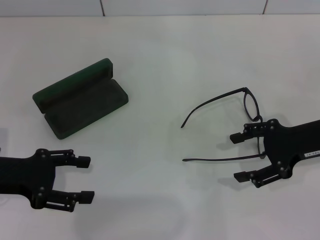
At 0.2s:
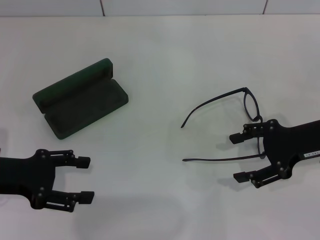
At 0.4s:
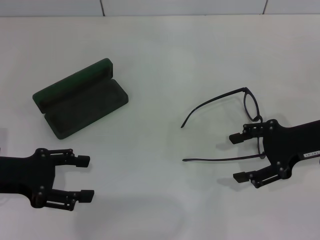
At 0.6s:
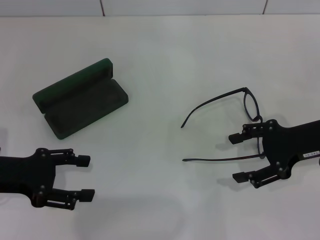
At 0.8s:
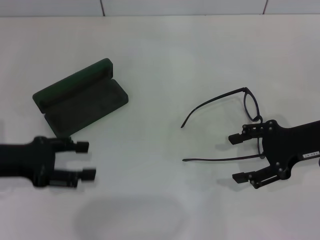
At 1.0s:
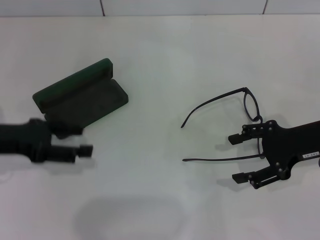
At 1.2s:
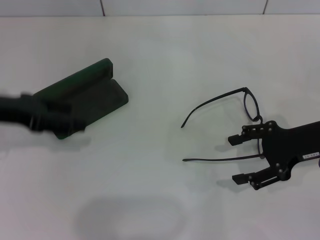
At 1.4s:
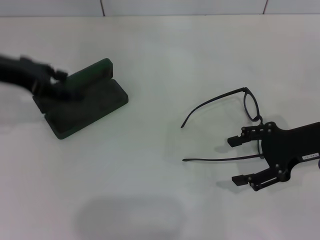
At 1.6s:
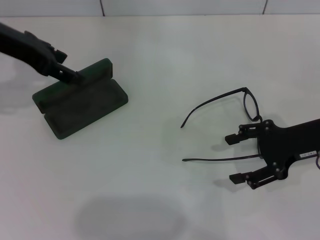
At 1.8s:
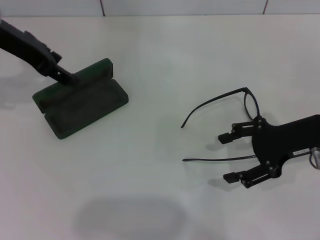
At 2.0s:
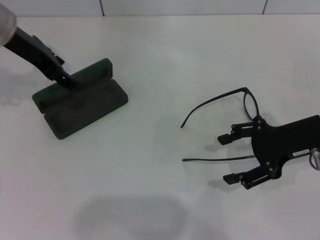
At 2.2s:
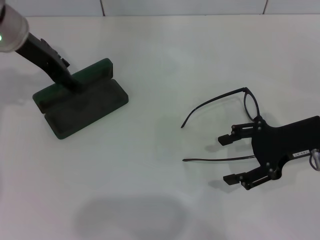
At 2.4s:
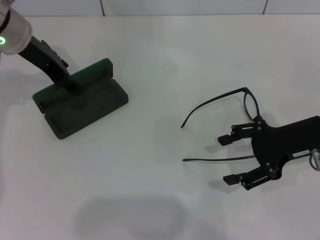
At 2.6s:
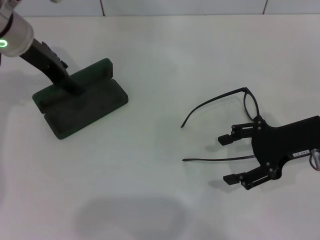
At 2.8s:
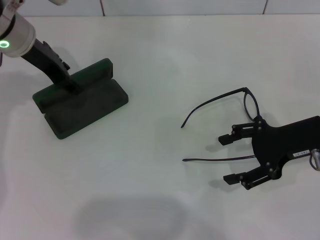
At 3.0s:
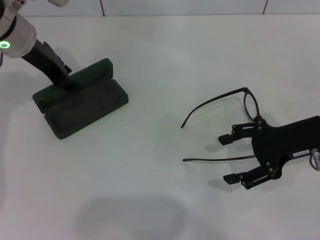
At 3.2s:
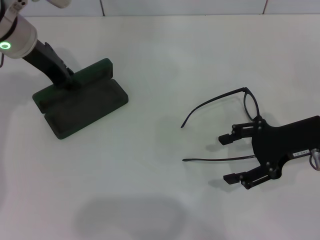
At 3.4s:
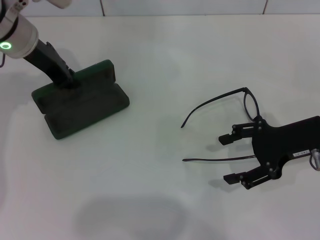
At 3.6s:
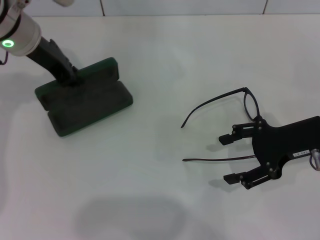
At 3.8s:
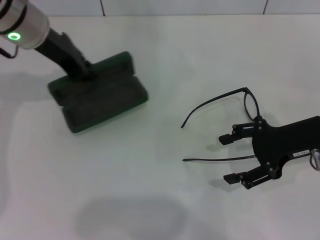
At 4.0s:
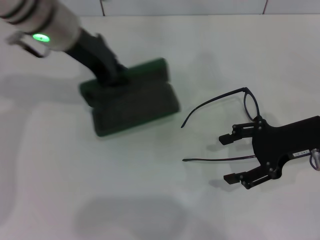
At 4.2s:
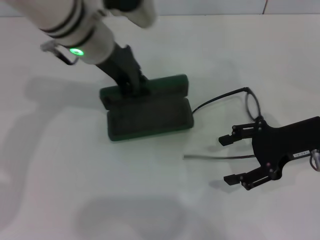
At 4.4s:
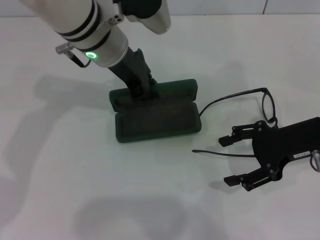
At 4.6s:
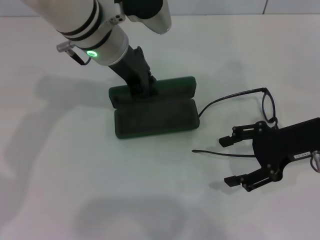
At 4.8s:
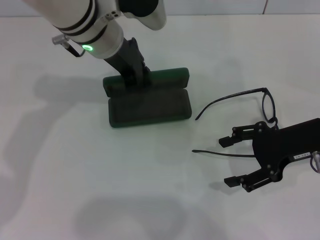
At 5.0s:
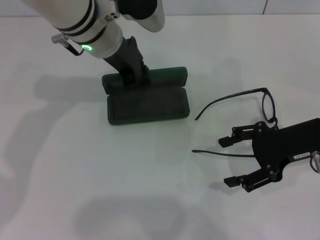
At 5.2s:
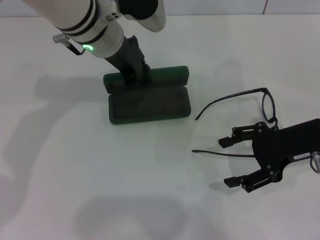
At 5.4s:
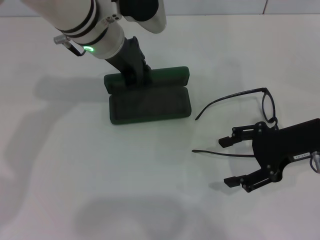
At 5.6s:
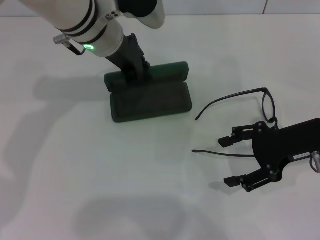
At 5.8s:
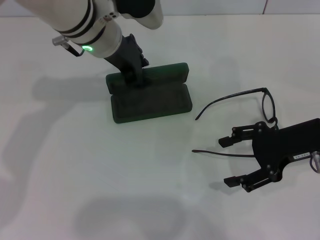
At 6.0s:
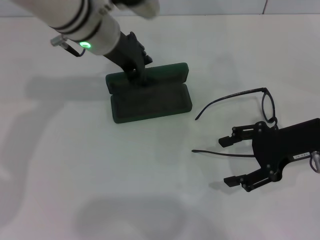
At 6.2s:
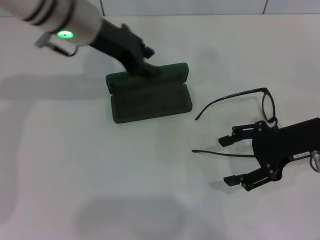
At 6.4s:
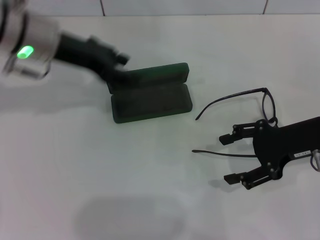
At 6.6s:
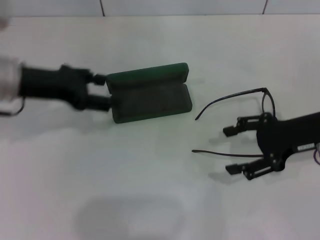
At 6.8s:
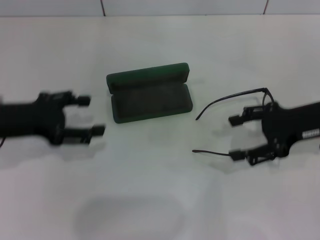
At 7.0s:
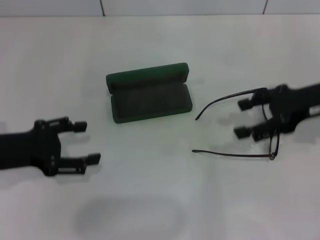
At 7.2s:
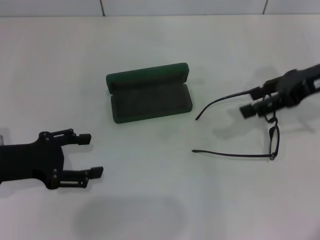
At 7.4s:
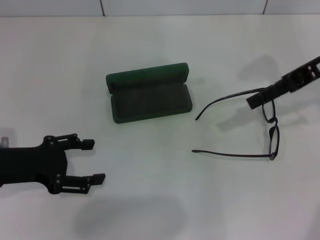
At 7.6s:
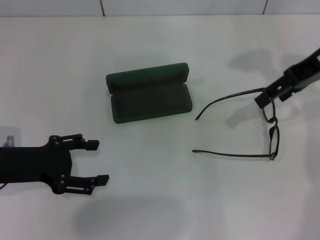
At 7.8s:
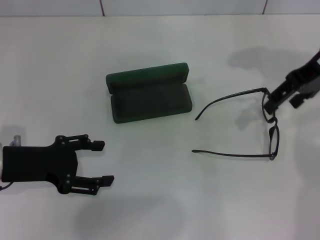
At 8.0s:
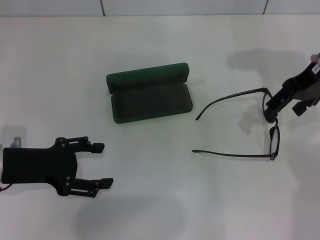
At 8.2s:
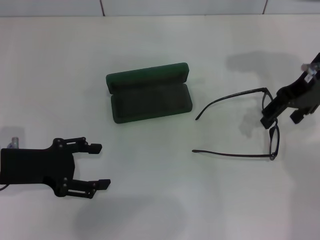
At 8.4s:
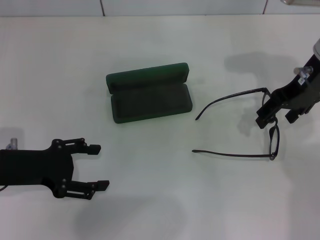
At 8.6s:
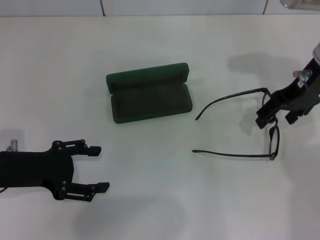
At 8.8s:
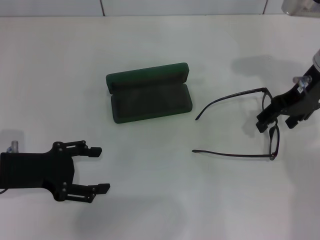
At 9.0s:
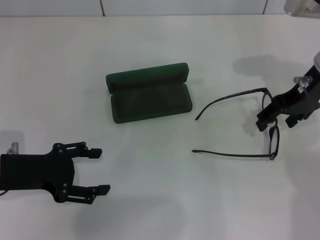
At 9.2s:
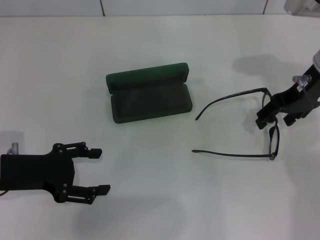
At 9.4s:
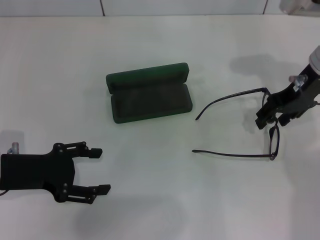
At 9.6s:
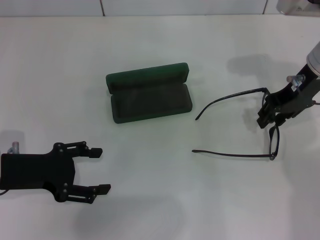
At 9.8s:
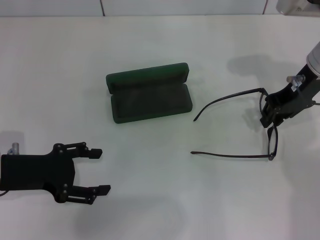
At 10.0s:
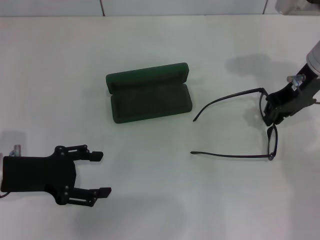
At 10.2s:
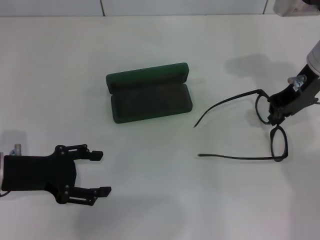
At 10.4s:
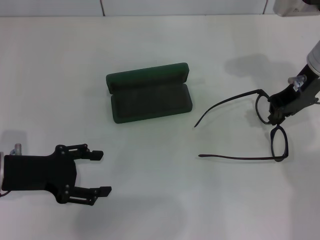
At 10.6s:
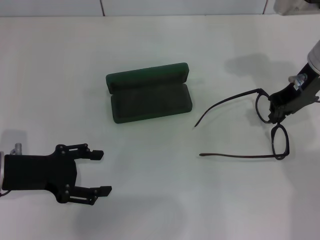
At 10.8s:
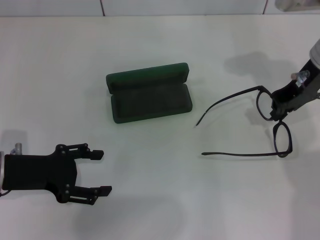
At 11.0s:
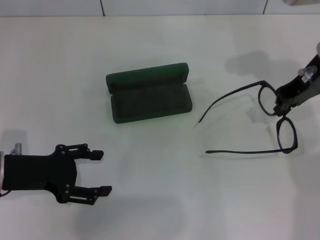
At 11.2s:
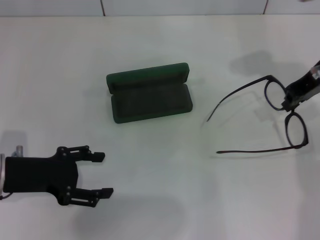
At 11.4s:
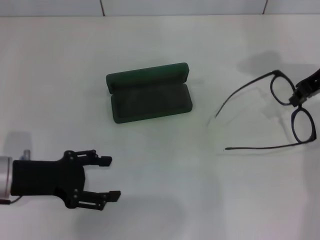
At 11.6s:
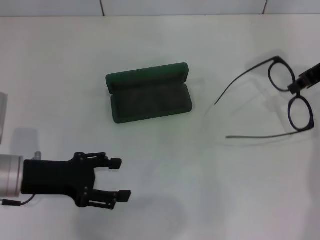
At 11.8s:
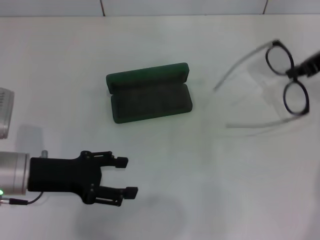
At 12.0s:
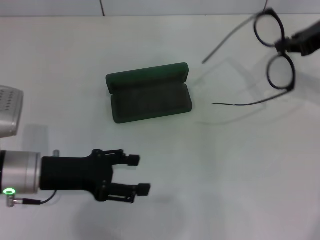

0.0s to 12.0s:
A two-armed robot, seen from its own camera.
Step, 0.0s to 3.2s: Grab the glasses case with your left hand.
Step, 3.4s to 5.6s: Place the glasses case in the center of the table with your left hand.
Step, 5.8s to 10.4s: Grab the eyeglass frame with your right hand.
0.0s to 1.6s: The left gripper travels forward and upward by roughly 20 cm.
1.6s to 3.0s: The left gripper changes place by some 5 cm.
3.0s to 4.4s: The left gripper heads to the right, covering some 10 cm, and closes.
4.4s to 6.0s: The grippers move only a little.
6.0s to 7.6s: The left gripper shifts approximately 25 cm to the left, backward and downward, and opens, while the right gripper moves upward and forward, about 15 cm.
7.6s to 9.0s: The right gripper travels downward by some 5 cm.
9.0s to 10.4s: The right gripper closes up.
10.4s to 12.0s: The right gripper is displaced to the right by some 10 cm.

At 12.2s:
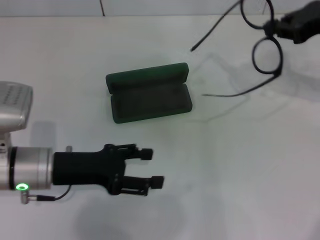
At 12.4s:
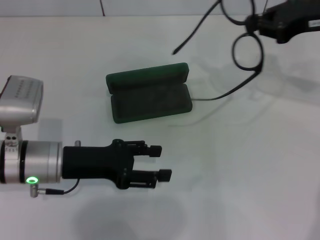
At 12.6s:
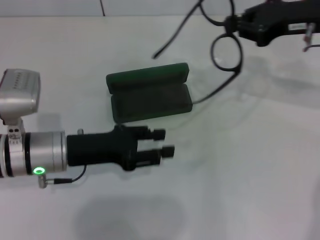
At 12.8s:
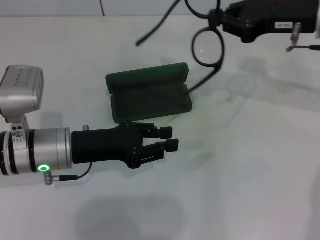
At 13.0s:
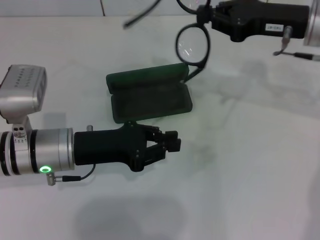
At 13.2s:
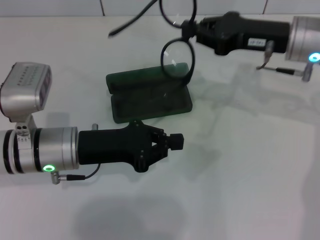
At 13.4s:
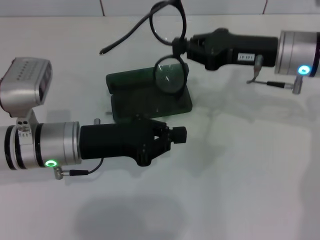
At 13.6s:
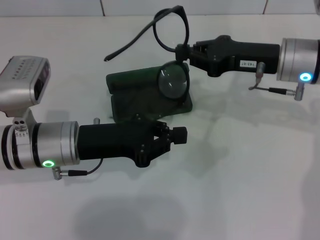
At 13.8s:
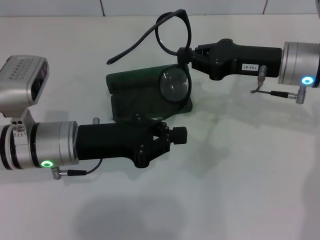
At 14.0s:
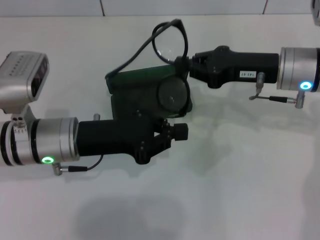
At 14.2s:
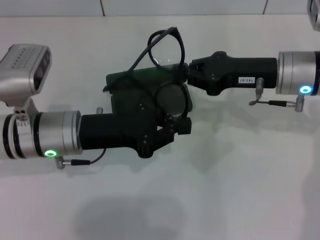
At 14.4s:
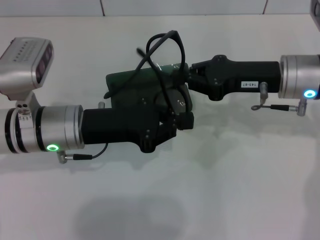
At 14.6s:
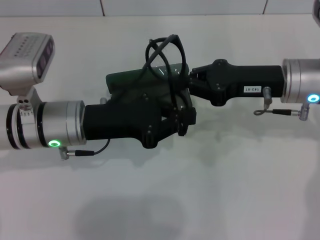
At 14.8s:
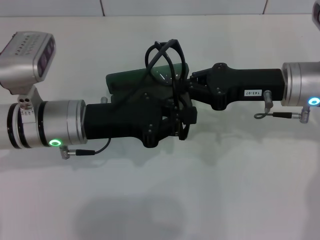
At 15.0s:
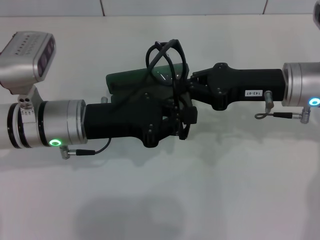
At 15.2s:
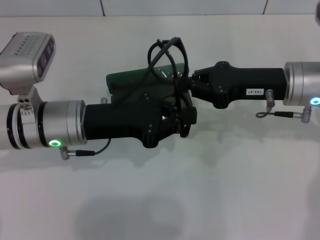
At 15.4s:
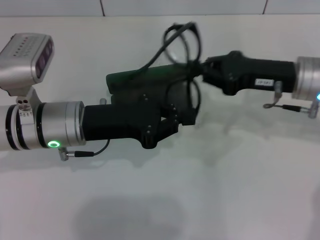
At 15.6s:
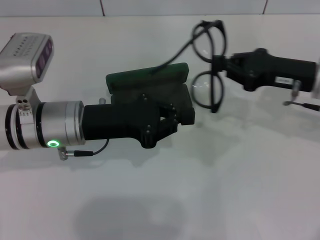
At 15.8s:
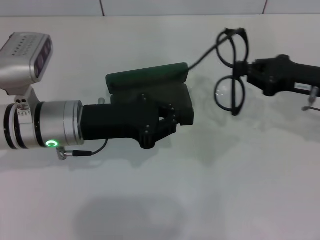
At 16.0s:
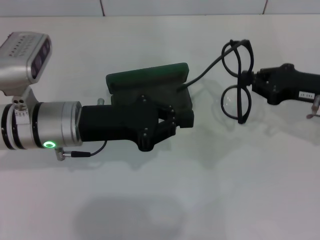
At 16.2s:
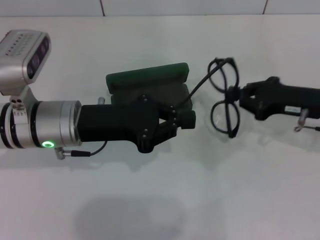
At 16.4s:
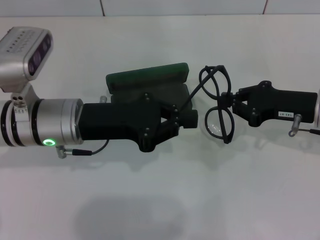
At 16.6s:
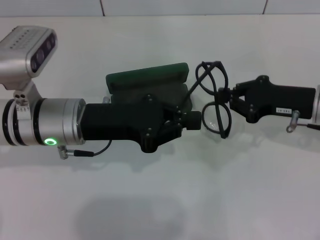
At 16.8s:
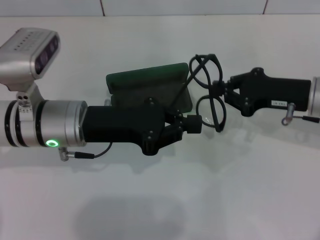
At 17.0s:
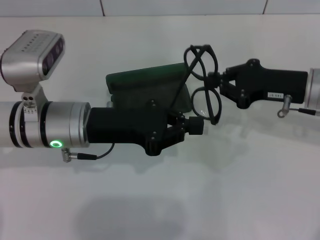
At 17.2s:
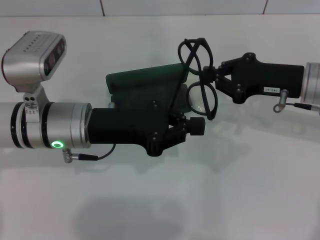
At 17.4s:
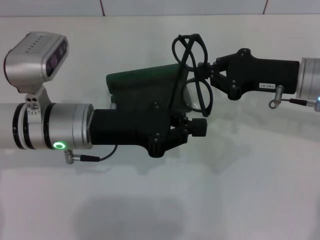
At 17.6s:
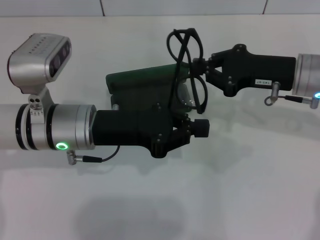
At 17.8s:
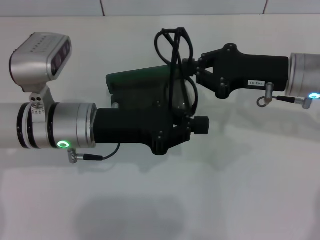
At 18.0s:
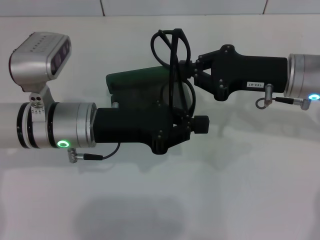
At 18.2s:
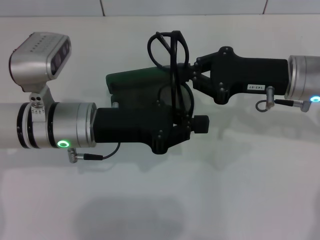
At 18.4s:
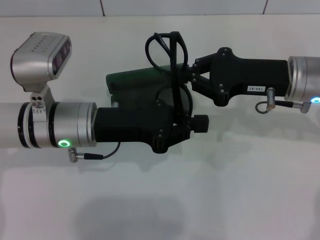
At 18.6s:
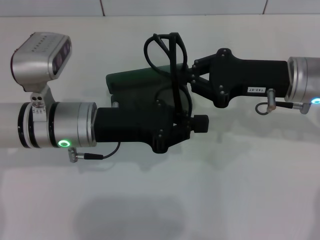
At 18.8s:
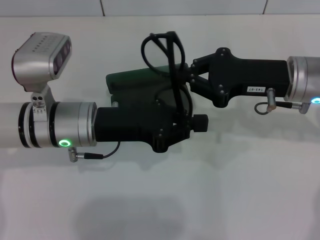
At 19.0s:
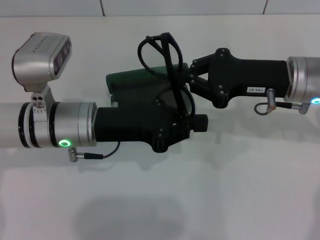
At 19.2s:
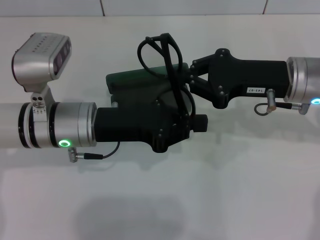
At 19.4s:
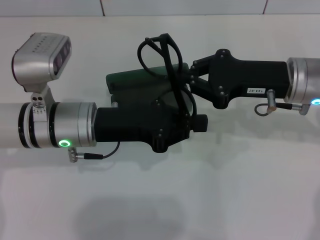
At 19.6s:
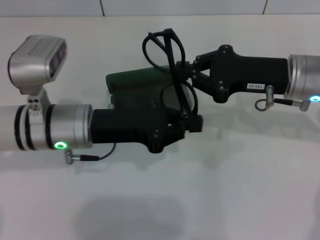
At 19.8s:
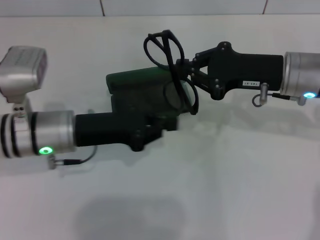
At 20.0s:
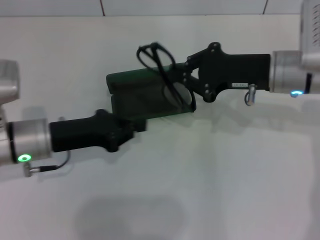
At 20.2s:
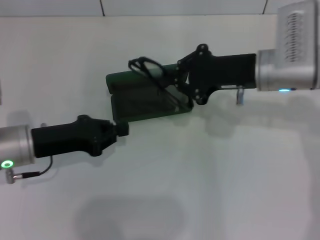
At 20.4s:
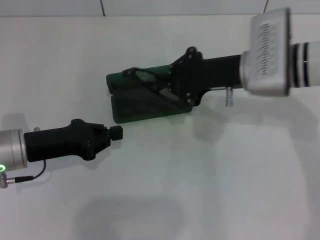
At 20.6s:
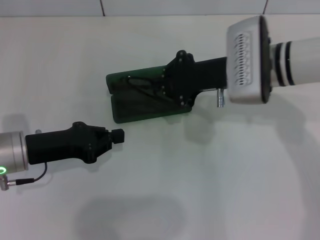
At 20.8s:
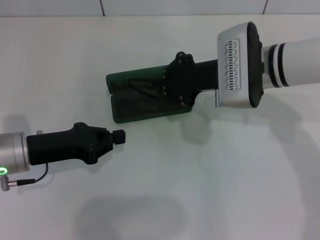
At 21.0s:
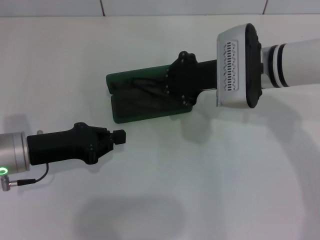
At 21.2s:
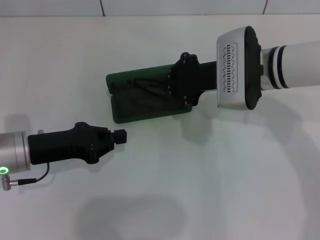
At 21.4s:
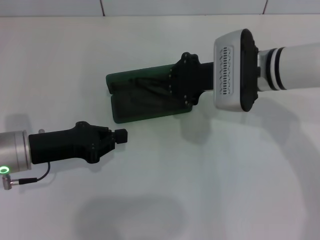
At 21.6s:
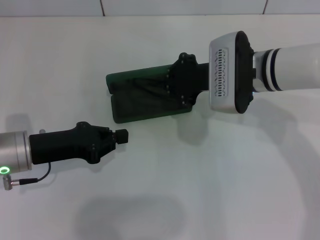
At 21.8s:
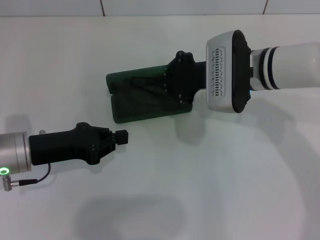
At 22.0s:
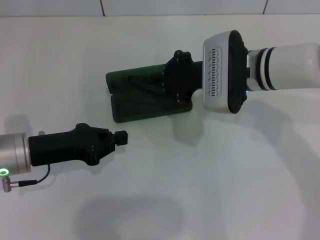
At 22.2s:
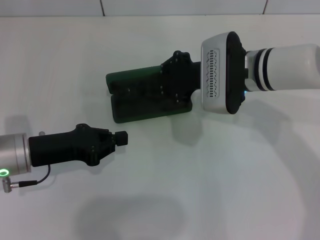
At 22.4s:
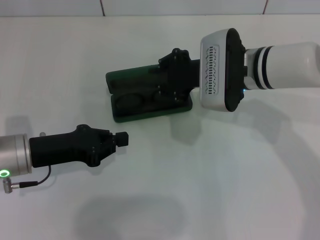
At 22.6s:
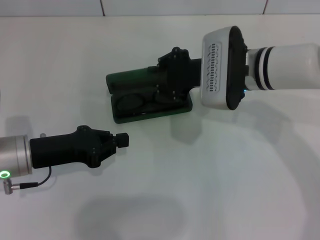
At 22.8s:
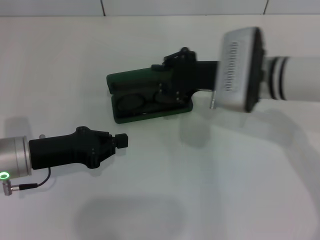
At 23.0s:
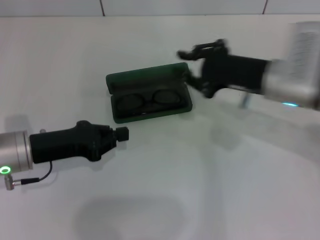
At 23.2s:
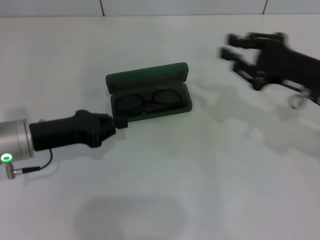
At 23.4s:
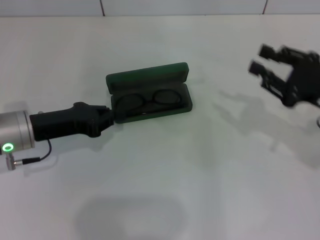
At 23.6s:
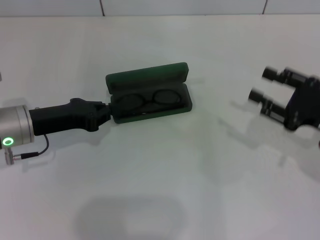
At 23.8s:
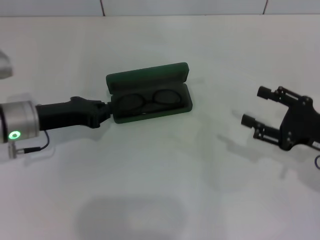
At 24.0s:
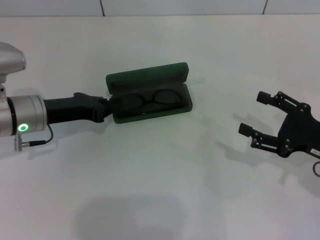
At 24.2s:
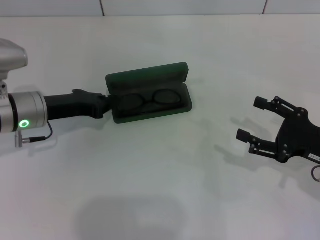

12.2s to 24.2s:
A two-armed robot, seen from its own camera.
Step, 12.2s to 18.6s: Fold the frame with your left hand.
Step, 18.8s to 22.2s: Put the glasses into the case with your right hand.
12.2s to 13.8s: The left gripper closes. Meanwhile the right gripper moves to the left and downward, approximately 10 cm.
15.2s to 16.6s: The right gripper heads to the right, covering about 5 cm.
16.6s to 18.2s: The right gripper shifts approximately 5 cm to the left.
18.2s to 19.8s: The grippers stay close to where they were, moving slightly.
19.8s to 21.2s: The two grippers go roughly 5 cm to the left.
21.2s to 22.6s: The grippers move only a little.
22.6s to 24.2s: The left gripper moves forward, about 5 cm, while the right gripper is displaced to the right and backward by some 20 cm, and opens up.
